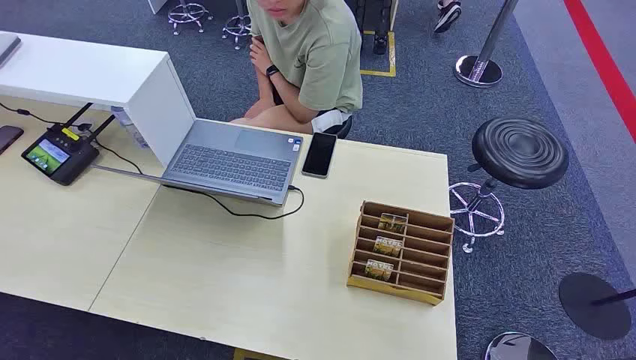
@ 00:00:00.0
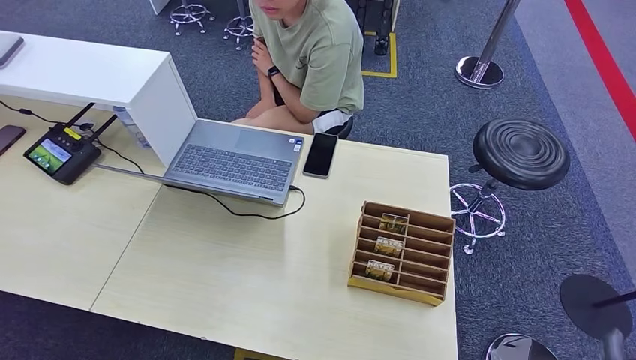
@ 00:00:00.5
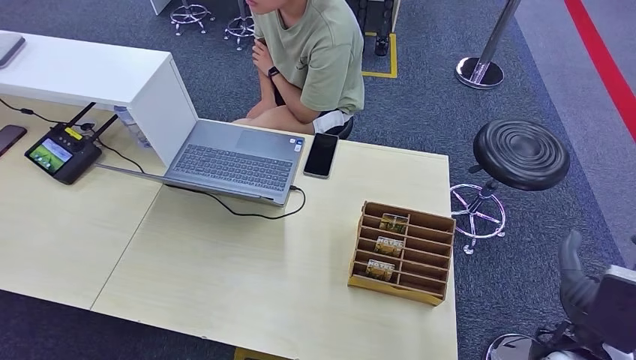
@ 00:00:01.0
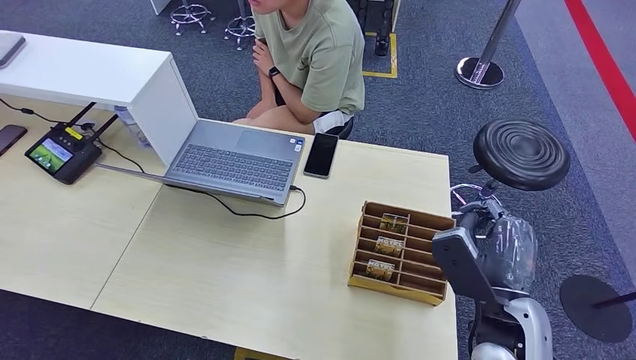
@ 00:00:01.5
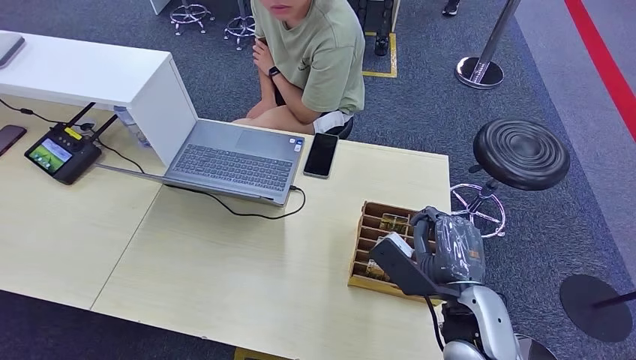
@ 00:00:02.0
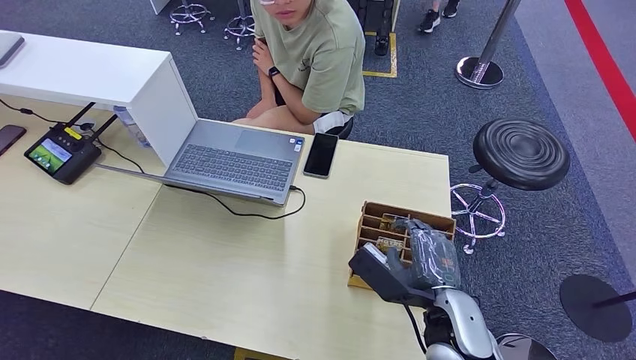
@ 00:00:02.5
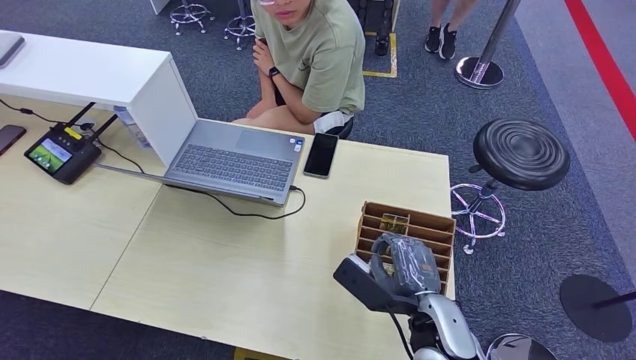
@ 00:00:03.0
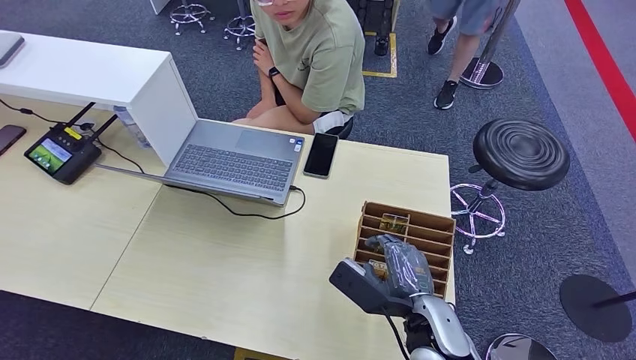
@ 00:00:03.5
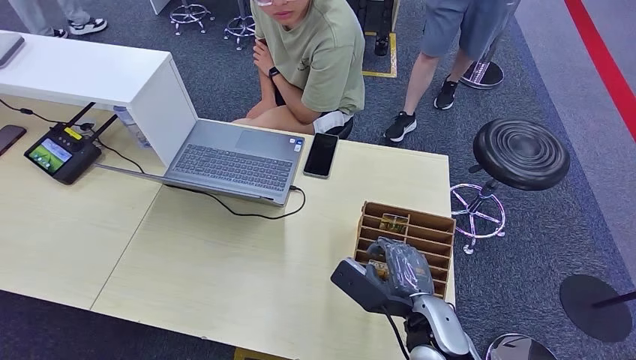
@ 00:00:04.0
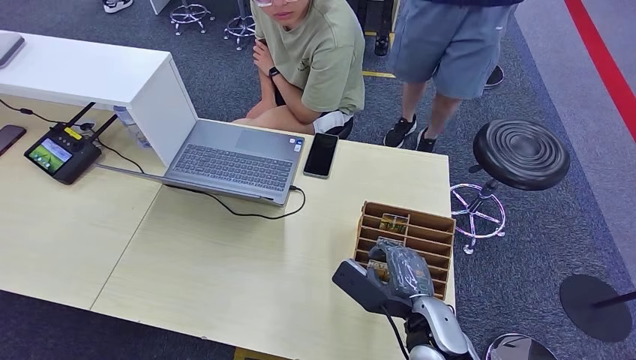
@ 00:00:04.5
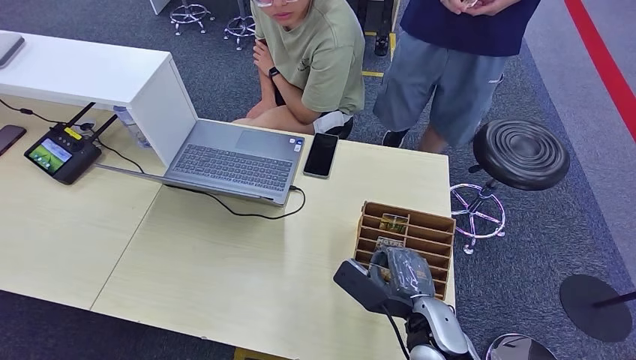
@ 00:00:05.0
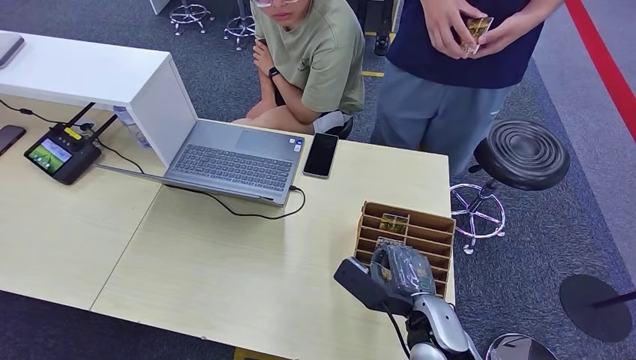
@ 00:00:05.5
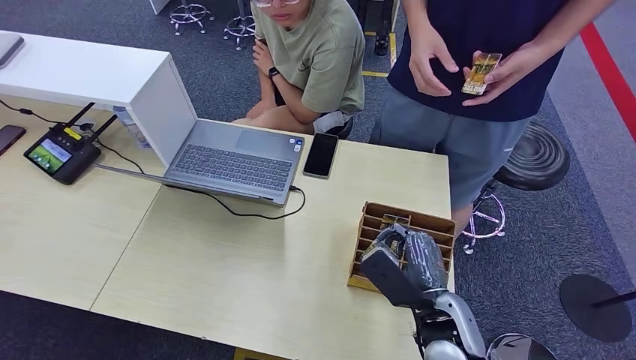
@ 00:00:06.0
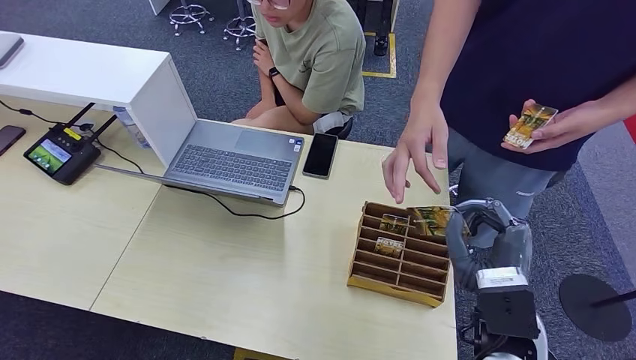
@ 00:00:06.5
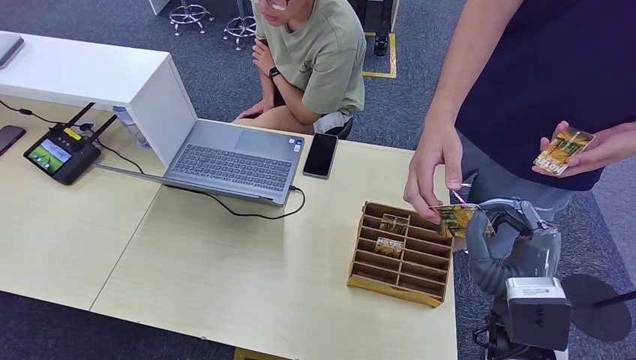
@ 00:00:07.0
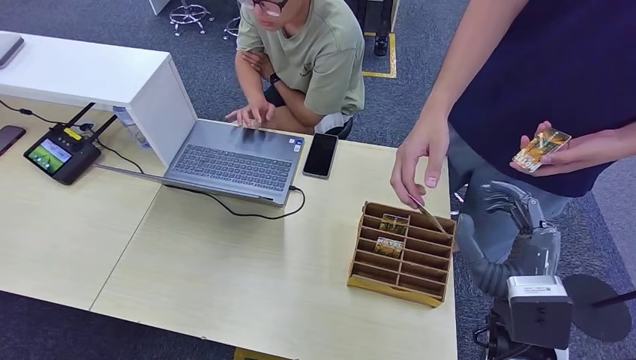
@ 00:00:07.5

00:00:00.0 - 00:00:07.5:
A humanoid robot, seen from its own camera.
Step, 00:00:00.0 - 00:00:06.0: Pick up the key card from the card box.
Step, 00:00:06.5 - 00:00:07.5: Hand the key card to the target.
00:00:02.0 - 00:00:04.0: The right hand heads downward, covering about 5 cm.
00:00:04.0 - 00:00:05.5: Both hands stay about where they are.
